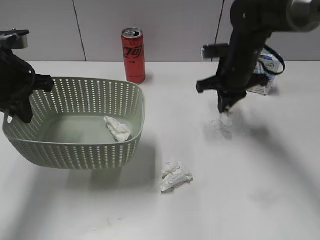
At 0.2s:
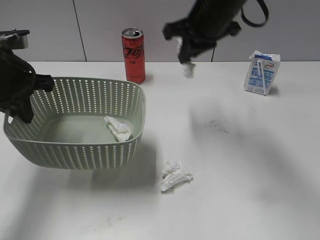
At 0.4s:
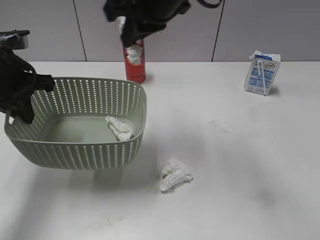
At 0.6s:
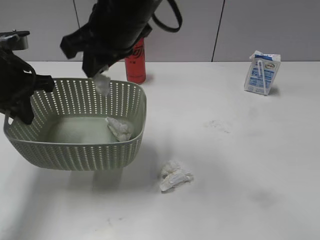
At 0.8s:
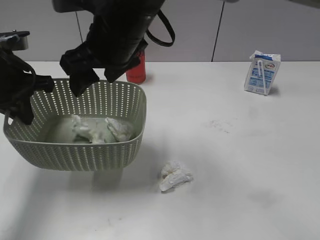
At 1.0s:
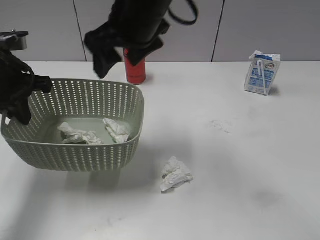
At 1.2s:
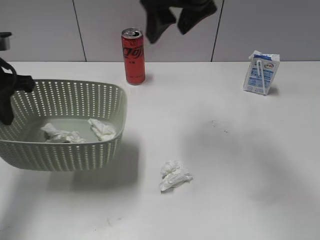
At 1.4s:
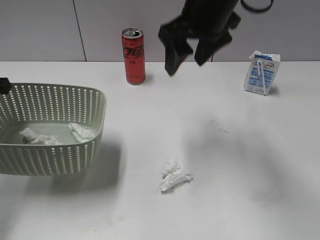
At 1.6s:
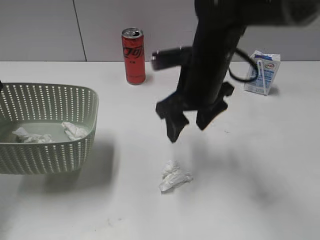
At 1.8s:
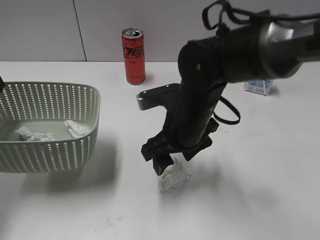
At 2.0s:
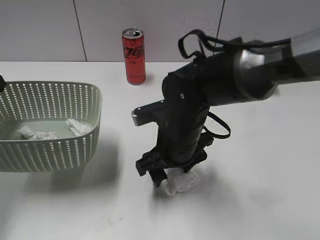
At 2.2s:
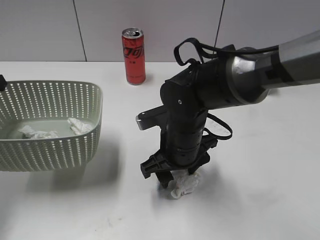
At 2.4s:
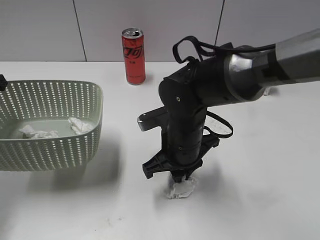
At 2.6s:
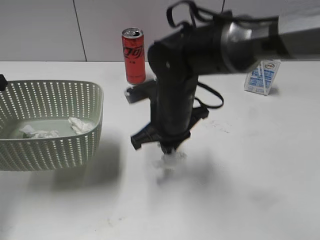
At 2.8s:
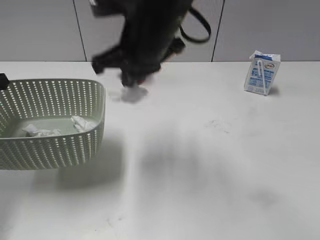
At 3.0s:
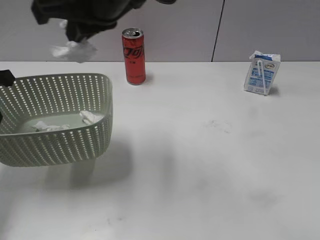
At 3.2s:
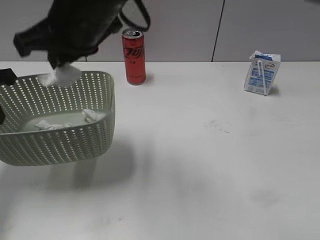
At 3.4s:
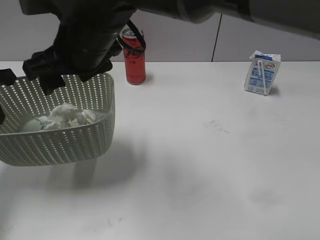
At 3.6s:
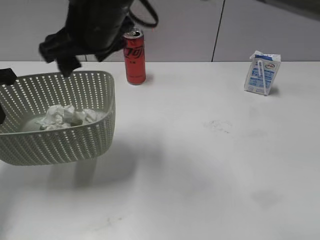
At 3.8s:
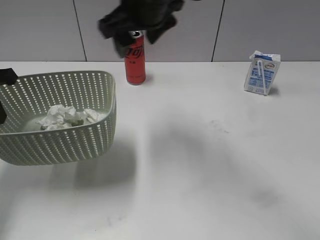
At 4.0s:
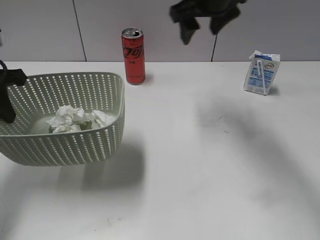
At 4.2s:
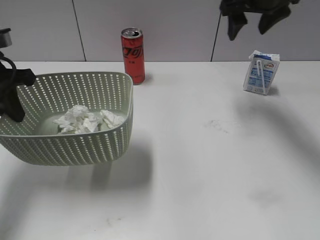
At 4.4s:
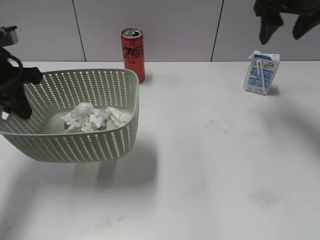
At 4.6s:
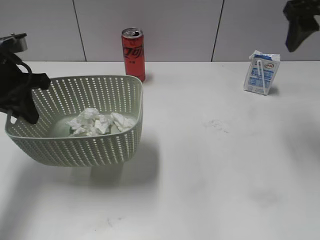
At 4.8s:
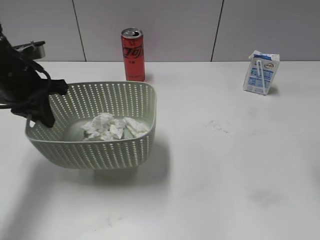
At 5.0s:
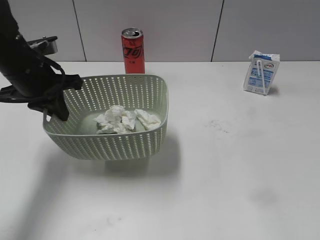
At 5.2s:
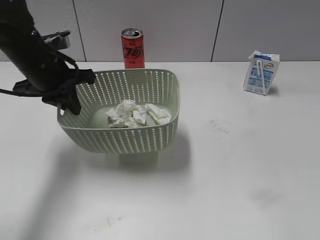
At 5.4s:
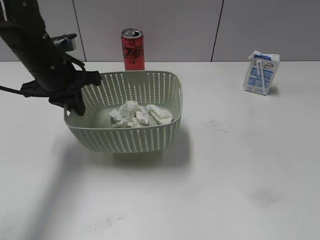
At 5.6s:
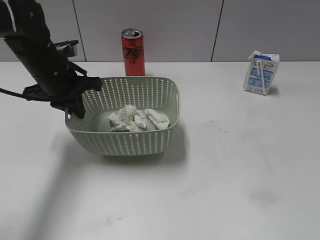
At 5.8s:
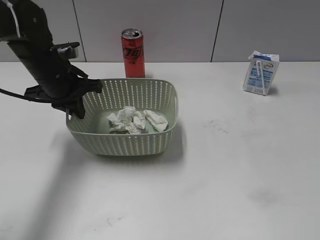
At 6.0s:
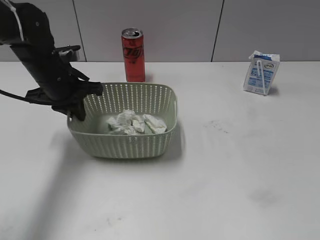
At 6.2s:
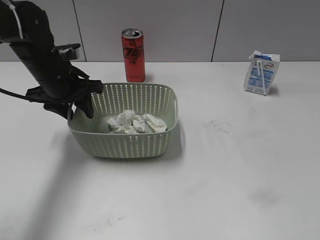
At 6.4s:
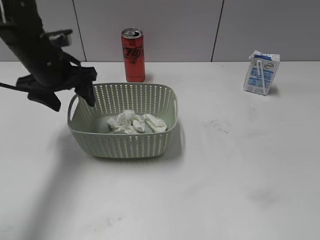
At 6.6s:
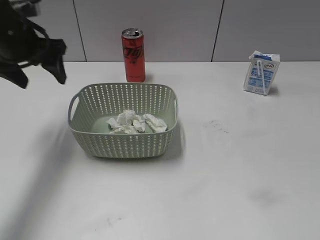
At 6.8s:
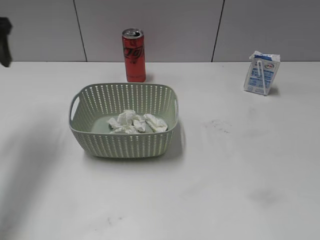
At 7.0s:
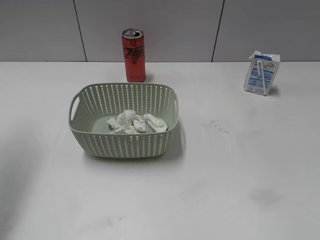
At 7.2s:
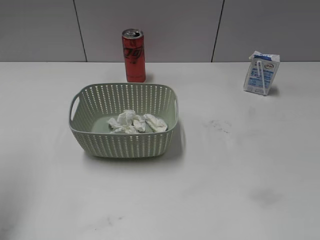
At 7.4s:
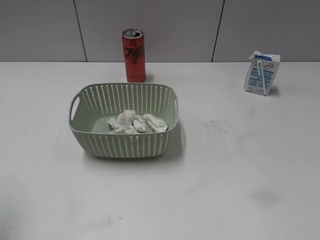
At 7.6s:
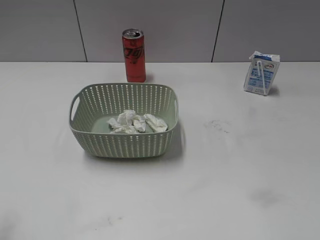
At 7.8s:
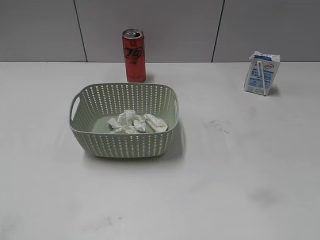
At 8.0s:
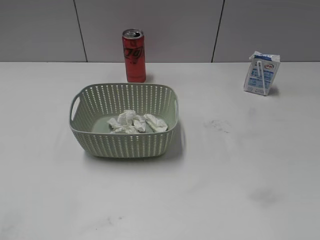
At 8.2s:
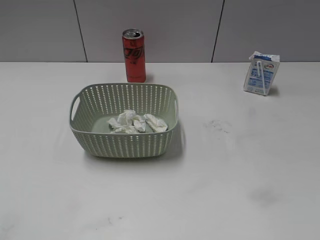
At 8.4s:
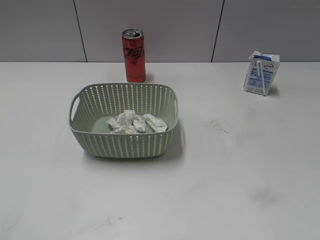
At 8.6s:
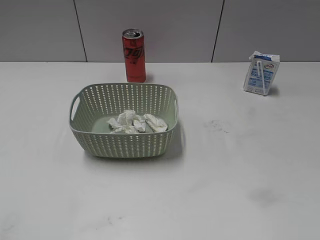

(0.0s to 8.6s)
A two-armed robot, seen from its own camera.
Step, 0.0s - 0.8s: Place the waste paper in the basket with right gripper.
Step, 1.0s - 2.4s: Grasp the waste paper with right gripper.
Step, 2.6s - 3.6s: Place the waste paper in the basket with right gripper.
Step, 3.8s - 6.4s: Place the basket on the table with left gripper.
0.0s - 1.4s: The right gripper shifts about 10 cm upward, backward and to the left, and opens up. Meanwhile the left gripper goes roughly 5 cm to the left.
1.4s - 2.8s: The right gripper heads to the left, covering about 10 cm, moves roughly 15 cm downward and comes back, and closes its fingers.
2.8s - 4.4s: The right gripper shifts approximately 25 cm to the right, and opens up.
4.4s - 5.8s: The left gripper goes about 10 cm to the right, downward and forward; the right gripper moves backward, some 40 cm.
5.8s - 7.2s: The left gripper shifts approximately 30 cm upward, backward and to the left, and opens up.
7.2s - 8.6s: The left gripper travels backward and downward by about 25 cm.

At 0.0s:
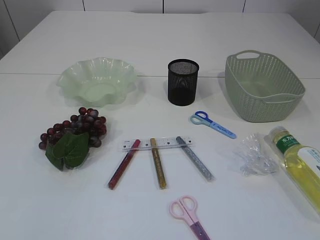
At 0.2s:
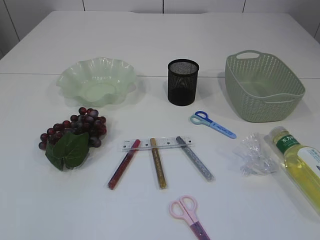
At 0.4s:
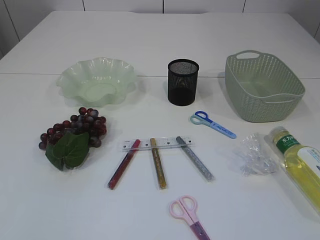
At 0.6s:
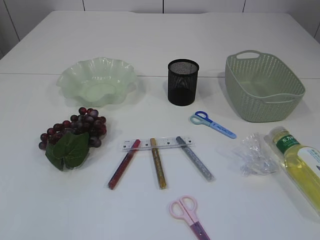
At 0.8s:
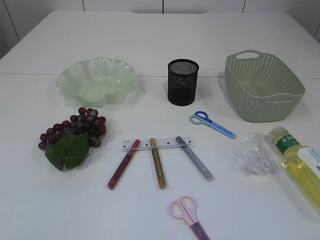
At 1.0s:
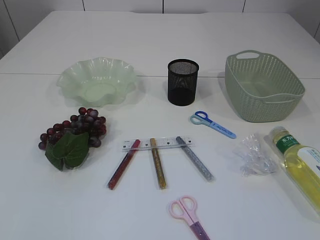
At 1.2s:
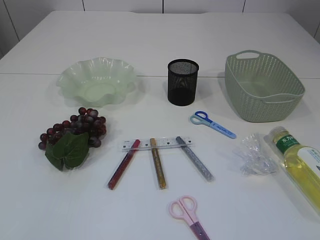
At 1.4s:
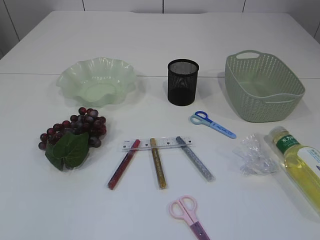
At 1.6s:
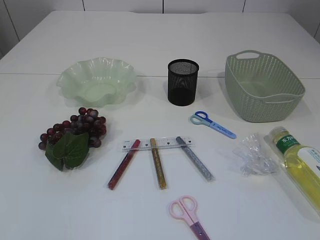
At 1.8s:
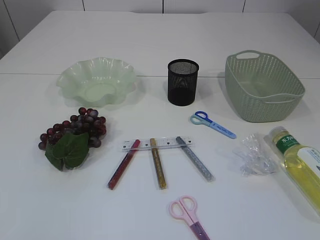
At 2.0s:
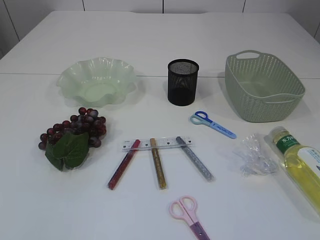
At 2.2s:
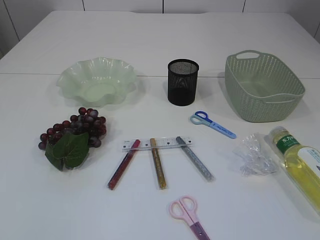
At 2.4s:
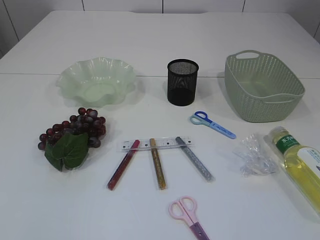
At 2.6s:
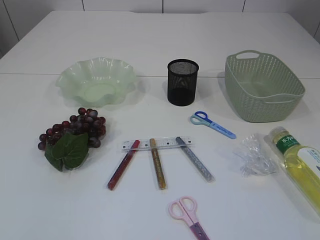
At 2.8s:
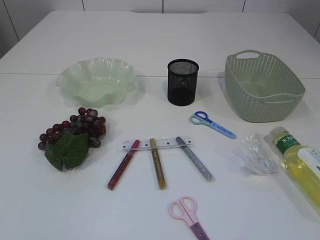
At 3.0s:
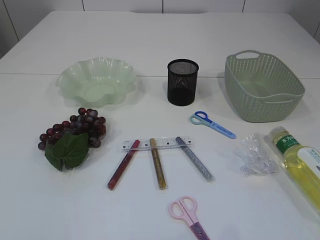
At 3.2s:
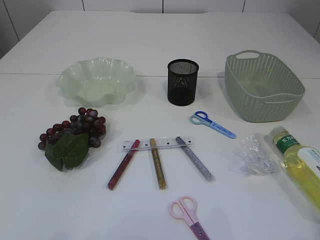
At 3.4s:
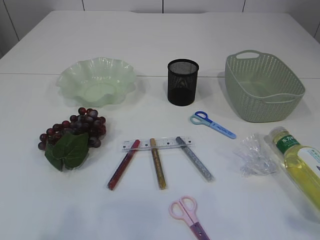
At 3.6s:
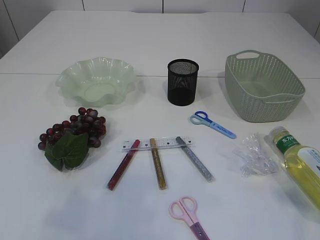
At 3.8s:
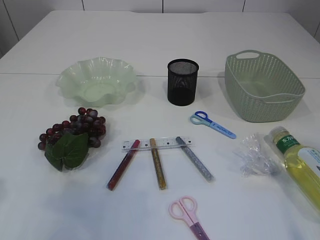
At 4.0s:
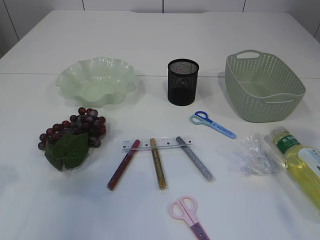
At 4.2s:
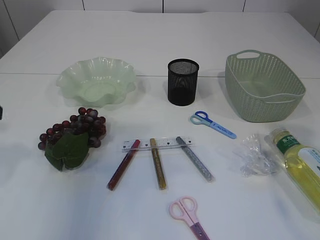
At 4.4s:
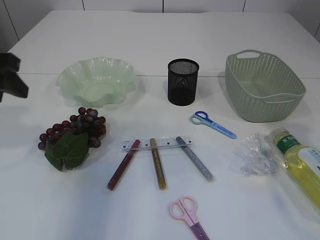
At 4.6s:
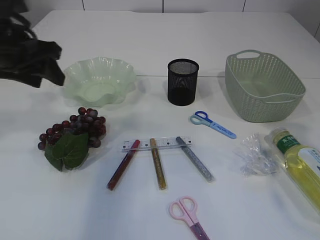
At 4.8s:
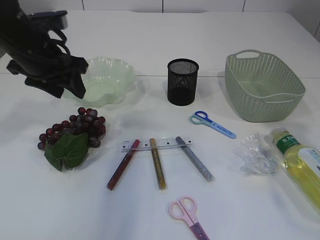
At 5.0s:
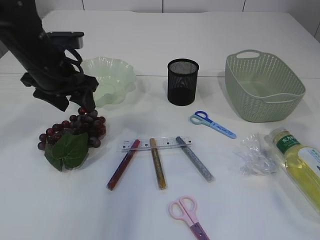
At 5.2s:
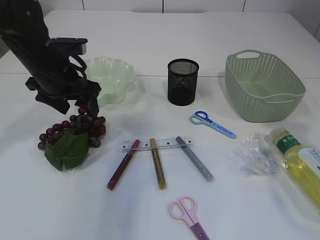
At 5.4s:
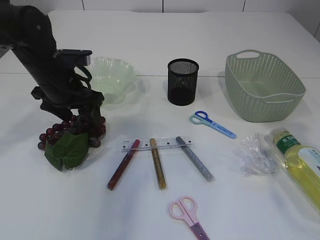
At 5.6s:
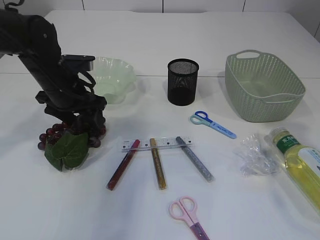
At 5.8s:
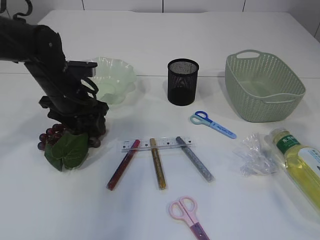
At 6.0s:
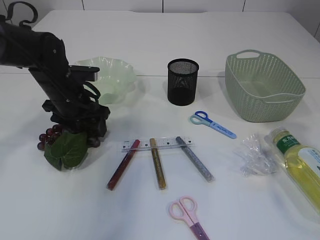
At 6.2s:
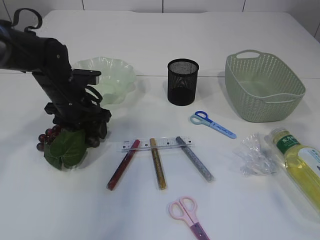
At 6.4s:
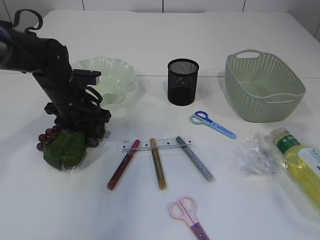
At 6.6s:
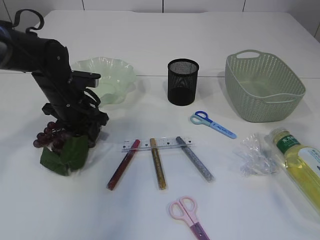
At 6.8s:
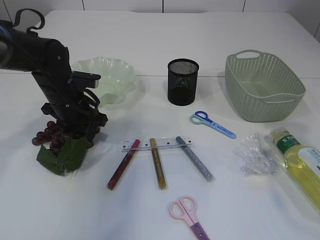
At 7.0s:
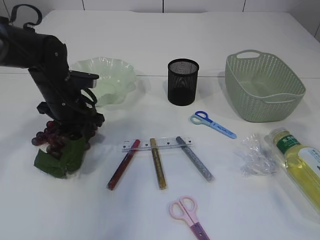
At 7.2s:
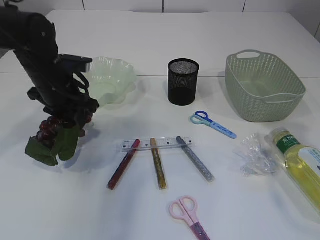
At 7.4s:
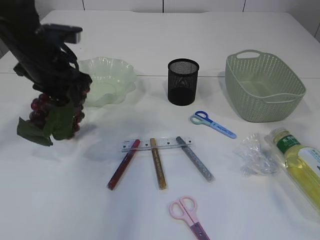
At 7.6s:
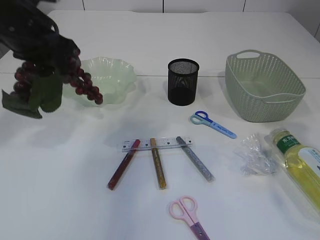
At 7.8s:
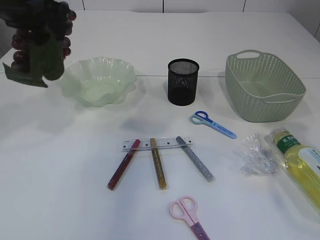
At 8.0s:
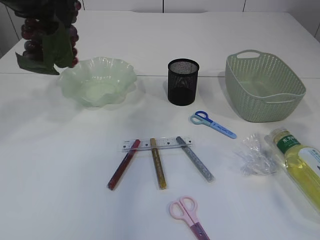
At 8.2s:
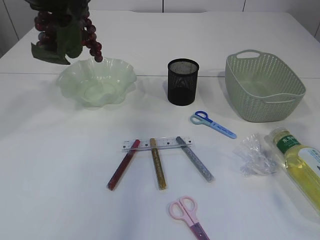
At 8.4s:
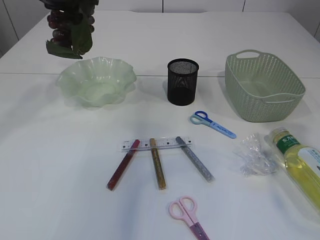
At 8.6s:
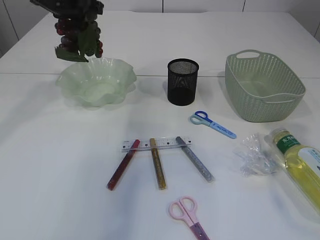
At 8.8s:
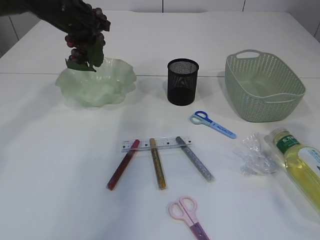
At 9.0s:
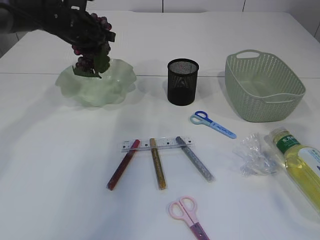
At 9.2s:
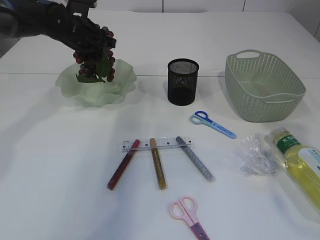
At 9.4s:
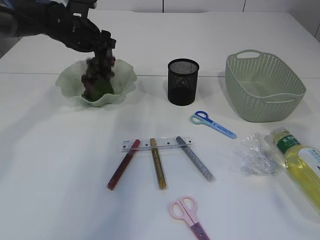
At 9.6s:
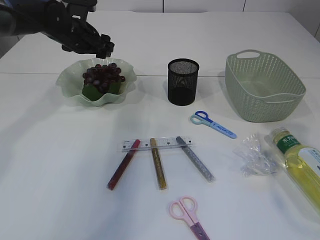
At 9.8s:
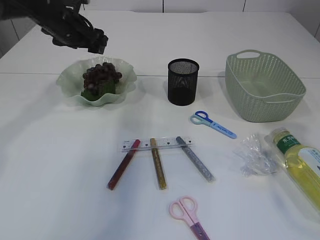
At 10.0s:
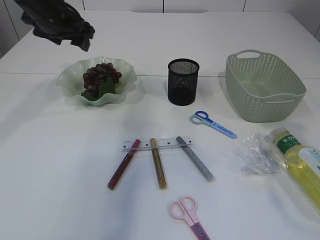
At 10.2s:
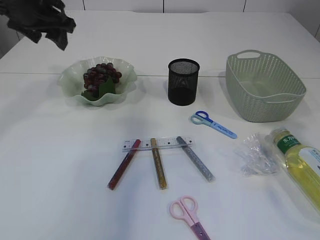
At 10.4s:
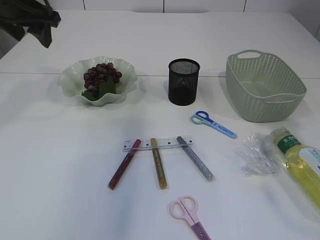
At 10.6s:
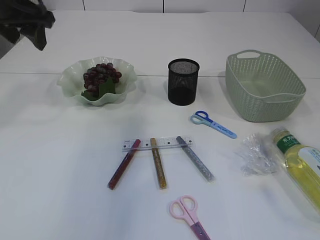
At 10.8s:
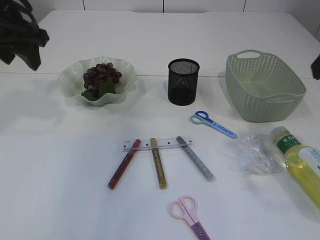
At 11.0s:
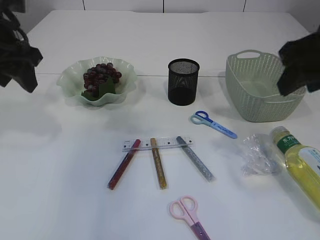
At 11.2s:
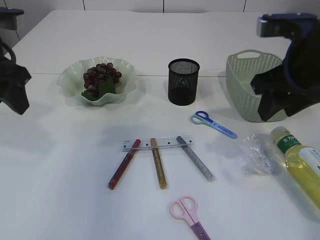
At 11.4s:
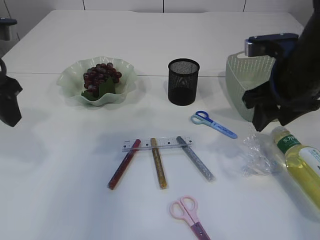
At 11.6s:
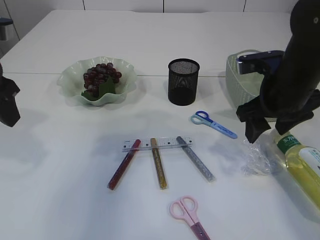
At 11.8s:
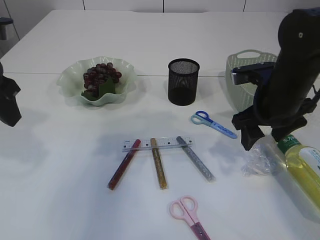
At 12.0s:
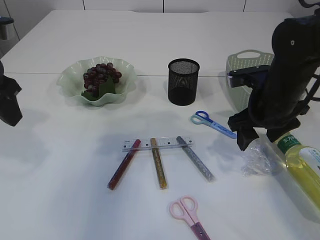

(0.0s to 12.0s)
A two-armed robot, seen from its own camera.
Step, 0.0s - 7.6s: Pick up the grapes.
Step, 7.8s - 10.0s: Place the grapes in the plate.
3.0s - 4.4s: The grippers both shift forward by some 25 cm.
4.4s - 6.0s: The left gripper shifts about 20 cm downward, forward and to the right, and opens its fingers.
6.0s - 7.6s: The left gripper moves upward, some 15 cm, and closes.
7.6s - 9.0s: The left gripper is displaced forward and downward by roughly 15 cm.
9.0s - 10.4s: The left gripper travels upward, backward and to the left by roughly 15 cm, and opens.
10.4s - 12.0s: The left gripper heads backward, covering approximately 15 cm, while the right gripper heads downward, forward and to the left, covering some 25 cm.

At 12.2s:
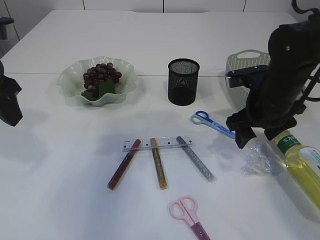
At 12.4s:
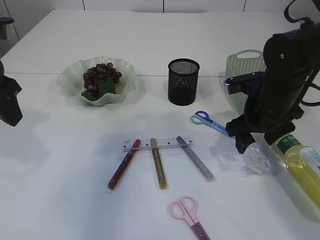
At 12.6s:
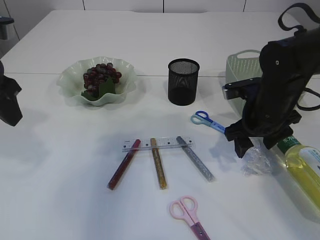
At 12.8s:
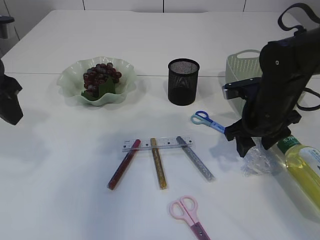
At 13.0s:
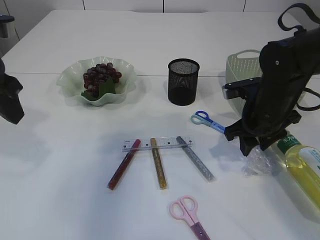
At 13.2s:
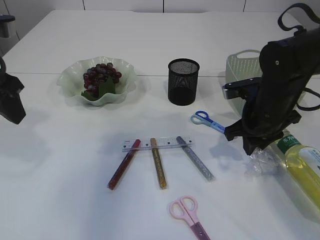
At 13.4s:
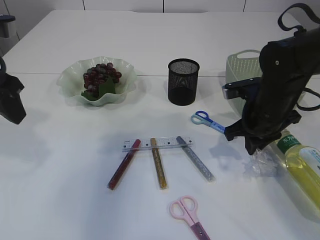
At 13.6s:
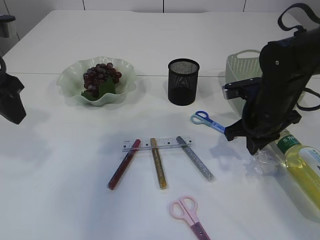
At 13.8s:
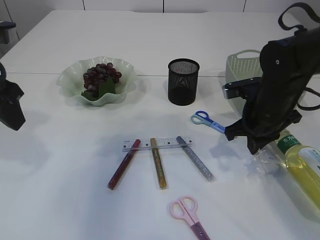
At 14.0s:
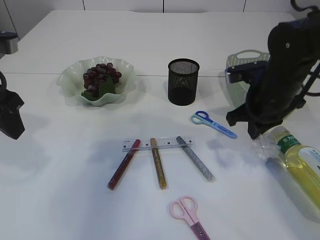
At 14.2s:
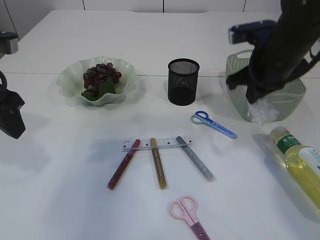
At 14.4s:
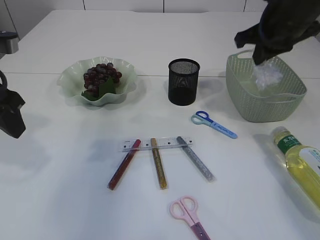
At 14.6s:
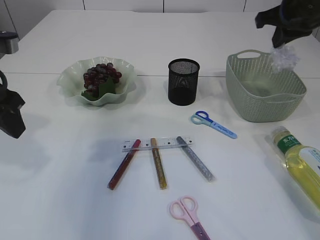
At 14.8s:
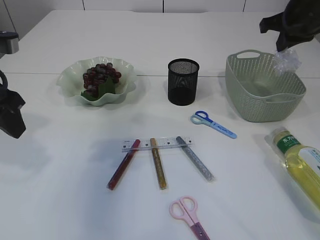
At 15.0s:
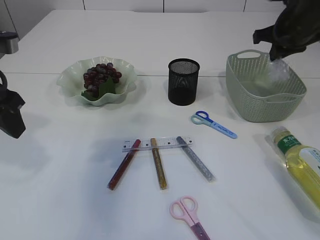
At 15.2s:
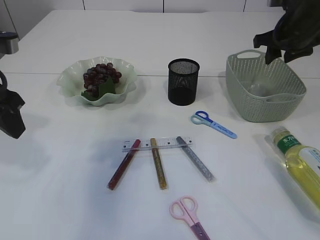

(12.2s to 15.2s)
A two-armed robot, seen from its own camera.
Step, 12.2s - 14.2s: Pick up the plastic.
12.2s - 13.8s: The right gripper closes its fingers.
13.8s - 15.2s: The right gripper travels upward, forward and to the right by about 15 cm, and opens up.
